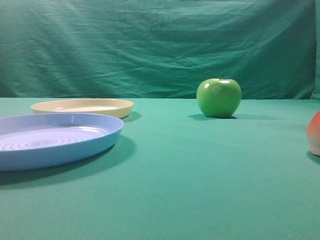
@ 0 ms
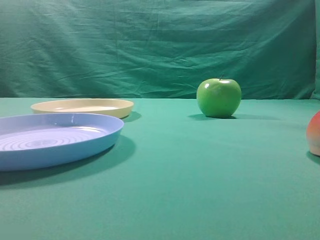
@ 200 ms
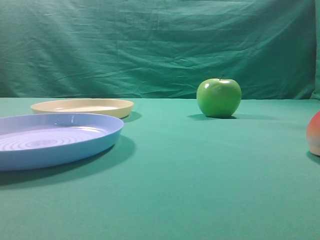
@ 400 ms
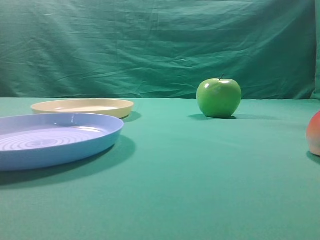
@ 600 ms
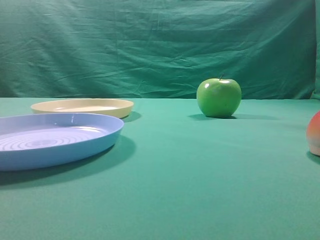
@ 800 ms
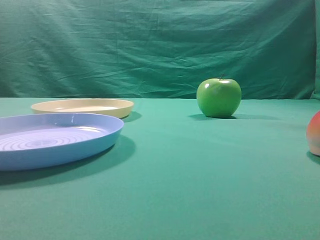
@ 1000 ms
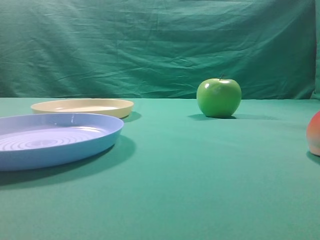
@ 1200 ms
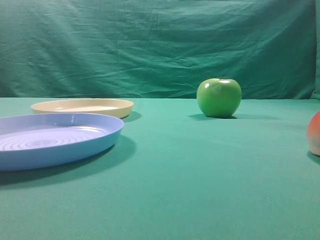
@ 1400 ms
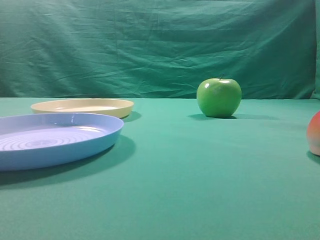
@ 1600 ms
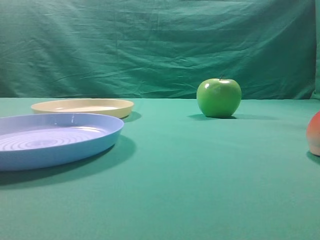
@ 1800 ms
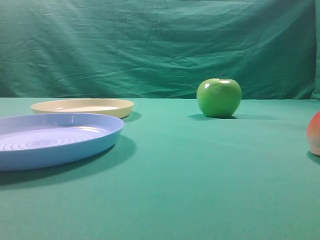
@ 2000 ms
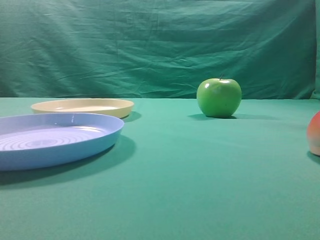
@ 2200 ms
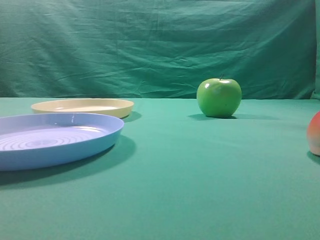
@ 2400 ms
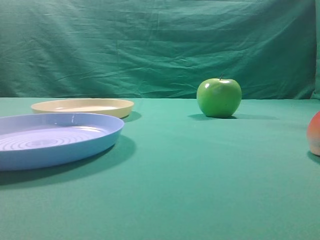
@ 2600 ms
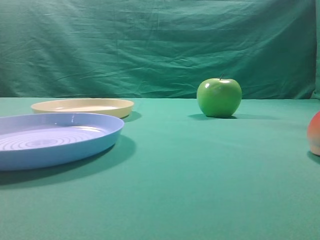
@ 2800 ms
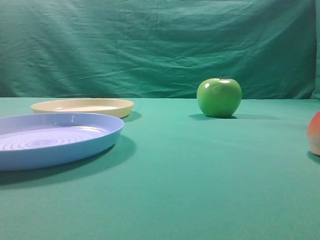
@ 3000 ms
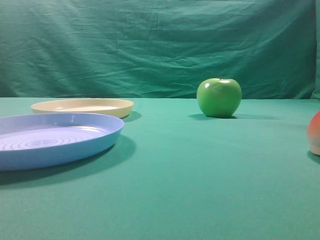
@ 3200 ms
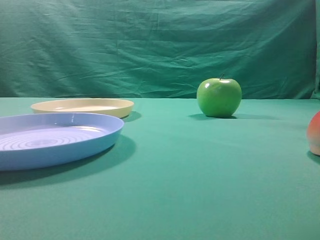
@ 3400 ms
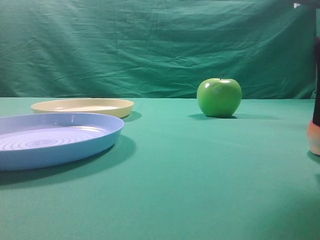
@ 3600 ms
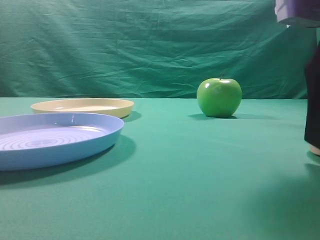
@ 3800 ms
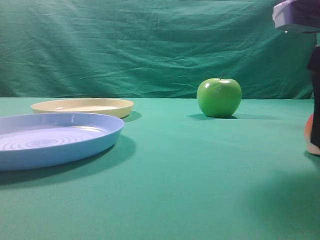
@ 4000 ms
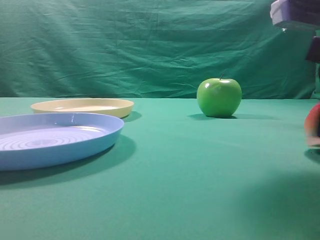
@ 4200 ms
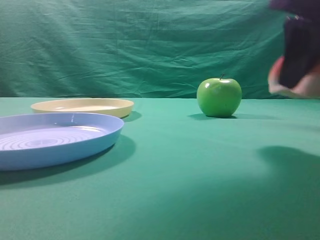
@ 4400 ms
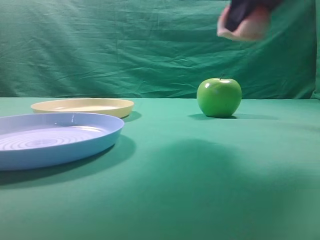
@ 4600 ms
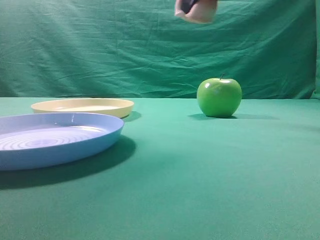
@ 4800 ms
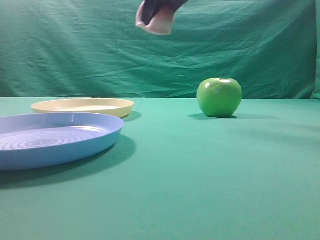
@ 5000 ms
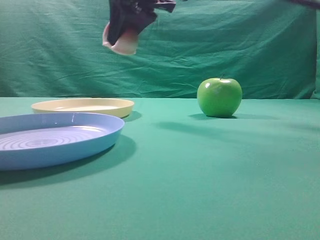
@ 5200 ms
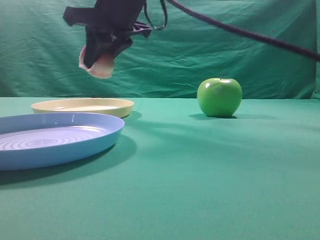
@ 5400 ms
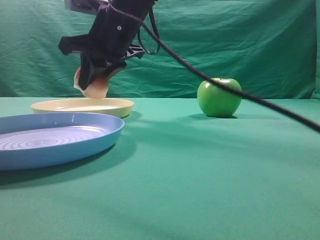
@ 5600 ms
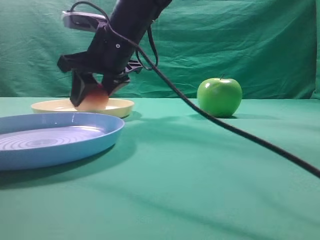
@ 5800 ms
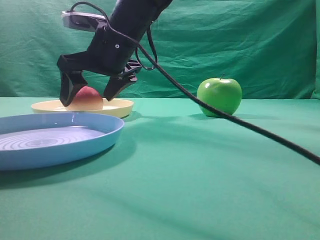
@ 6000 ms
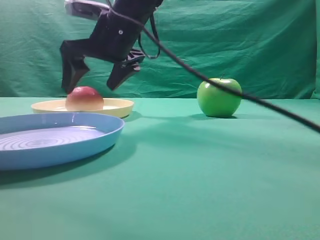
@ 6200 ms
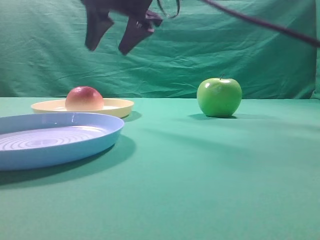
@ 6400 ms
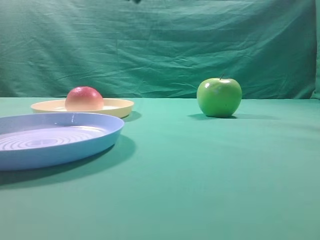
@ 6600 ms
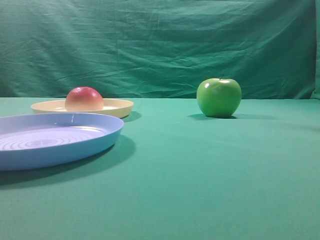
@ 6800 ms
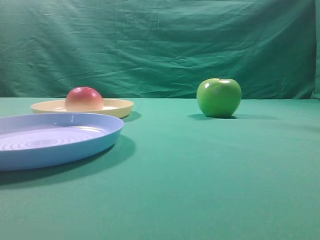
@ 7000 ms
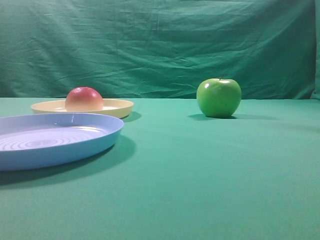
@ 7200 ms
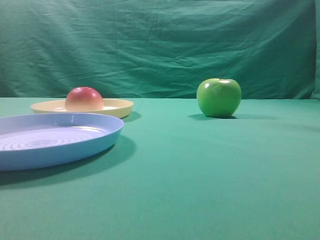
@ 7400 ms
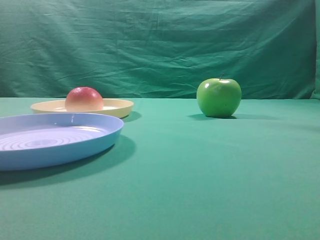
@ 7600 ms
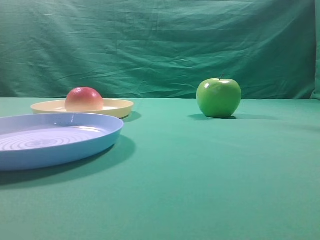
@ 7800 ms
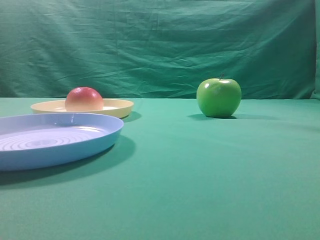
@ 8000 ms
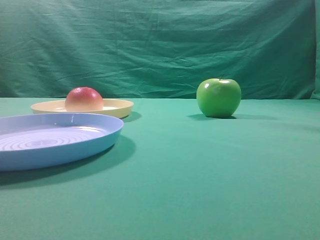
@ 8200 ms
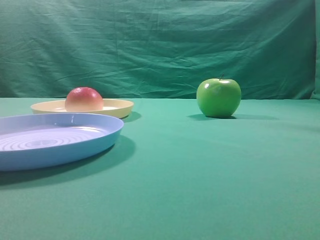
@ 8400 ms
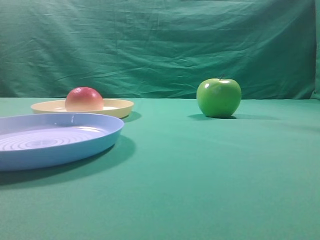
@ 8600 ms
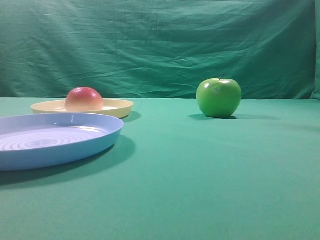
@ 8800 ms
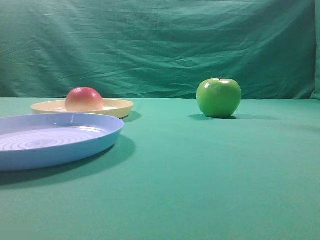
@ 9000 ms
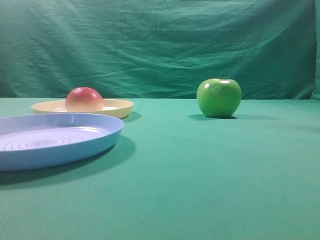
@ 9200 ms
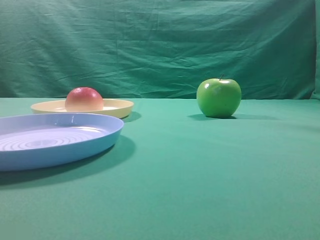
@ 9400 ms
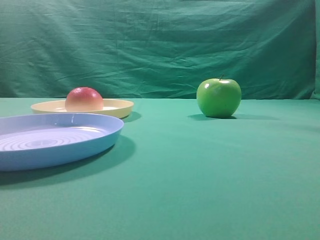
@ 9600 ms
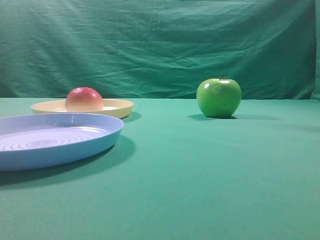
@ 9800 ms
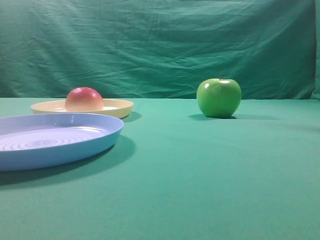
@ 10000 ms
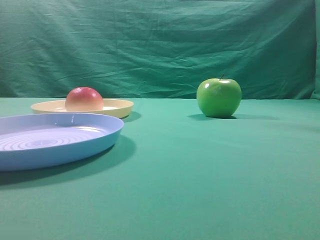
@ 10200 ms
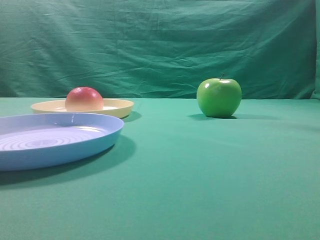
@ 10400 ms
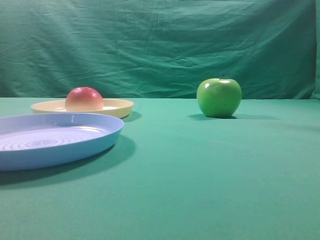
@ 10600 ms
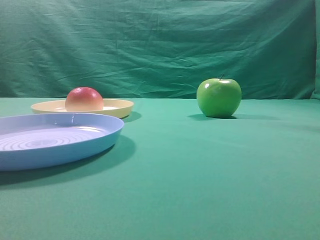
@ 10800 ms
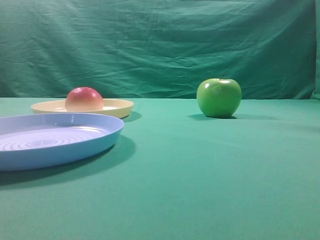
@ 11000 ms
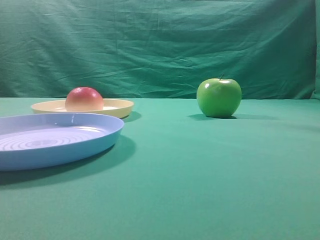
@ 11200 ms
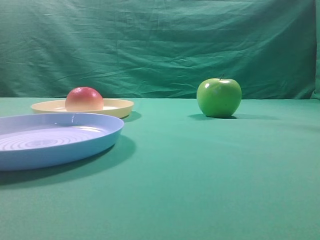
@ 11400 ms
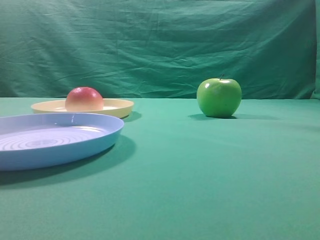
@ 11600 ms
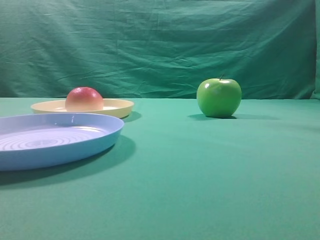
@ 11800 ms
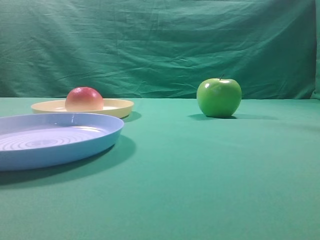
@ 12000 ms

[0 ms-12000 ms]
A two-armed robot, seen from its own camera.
Step, 4400 ms to 6200 ms: Place the picked object on the yellow plate.
